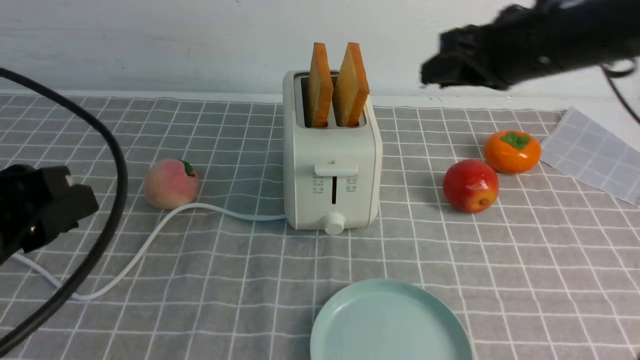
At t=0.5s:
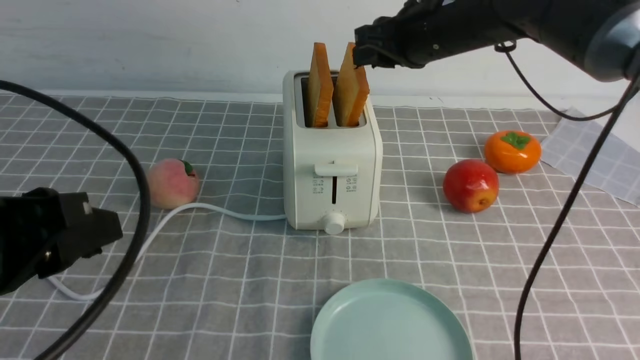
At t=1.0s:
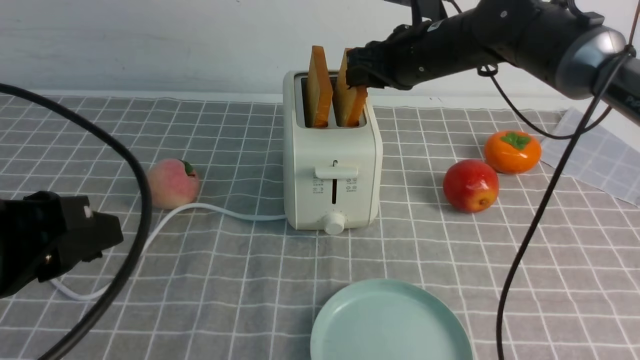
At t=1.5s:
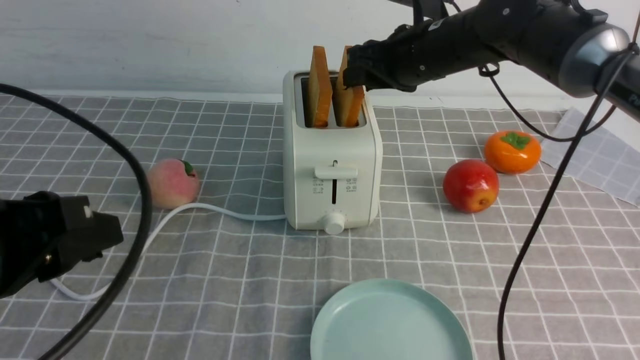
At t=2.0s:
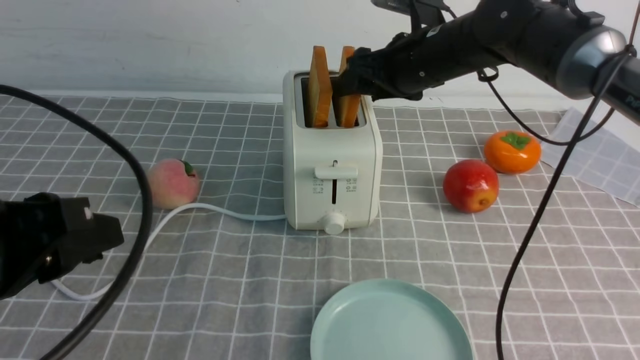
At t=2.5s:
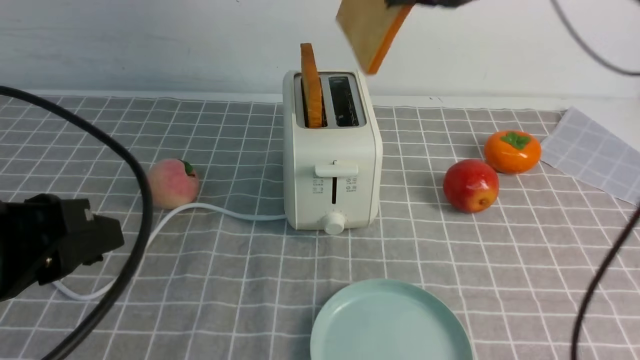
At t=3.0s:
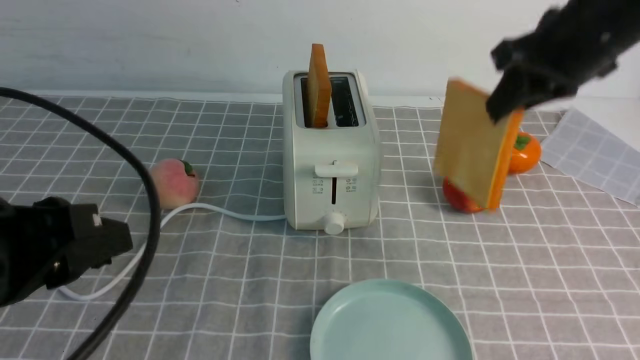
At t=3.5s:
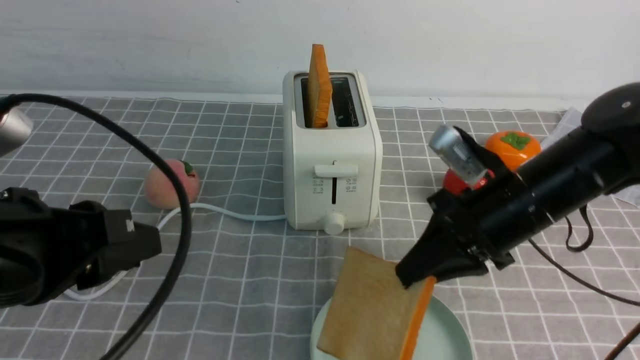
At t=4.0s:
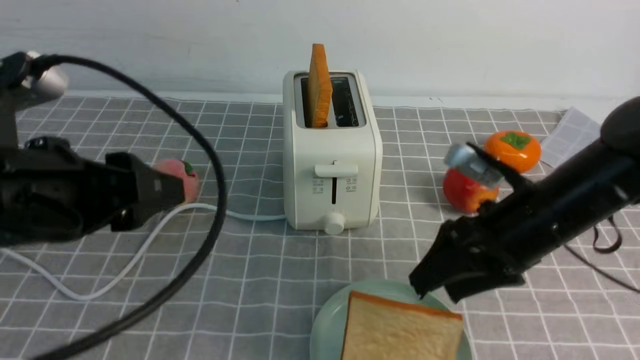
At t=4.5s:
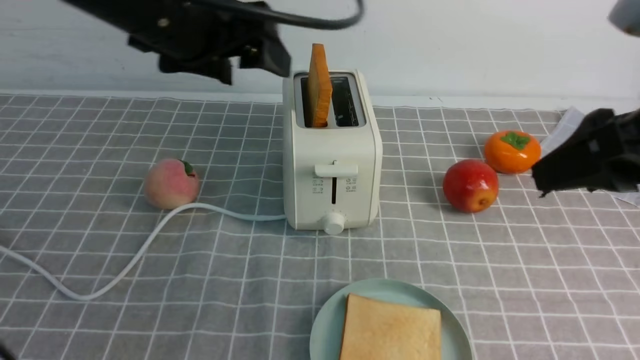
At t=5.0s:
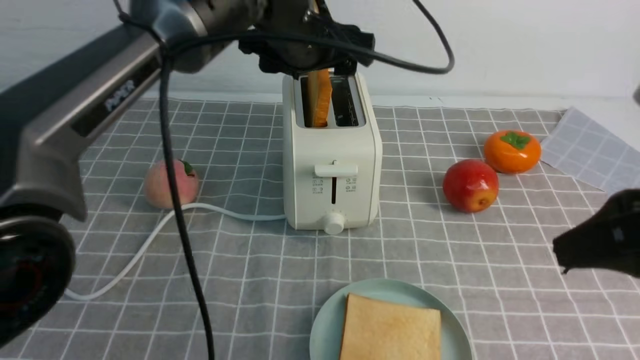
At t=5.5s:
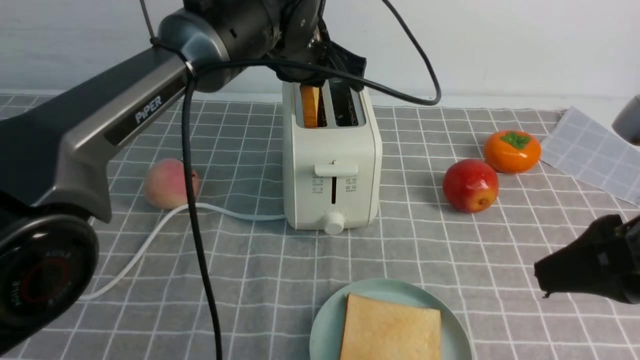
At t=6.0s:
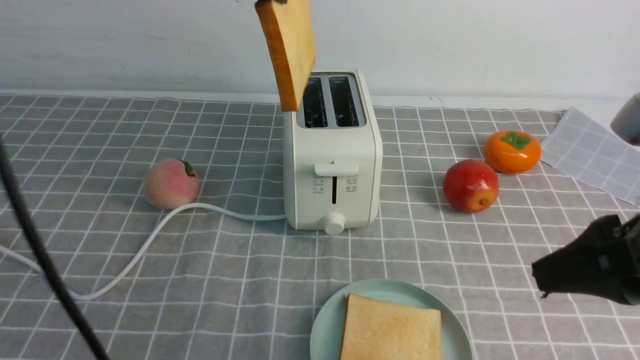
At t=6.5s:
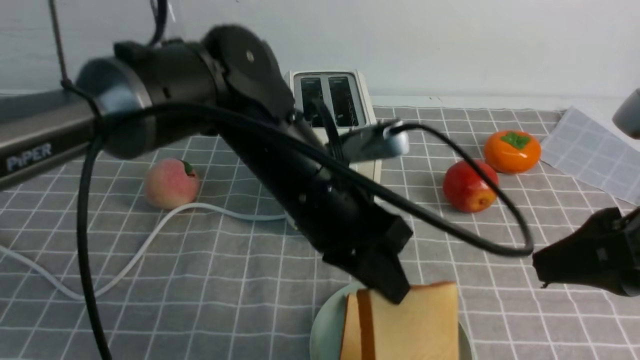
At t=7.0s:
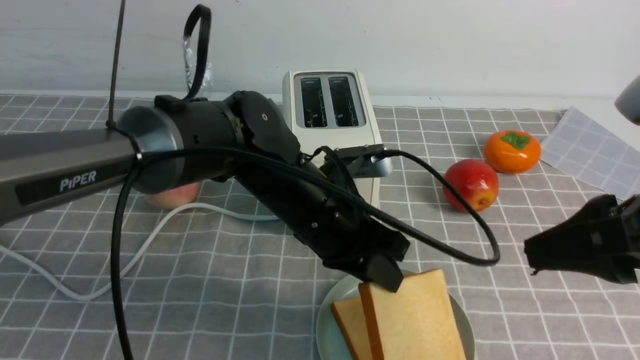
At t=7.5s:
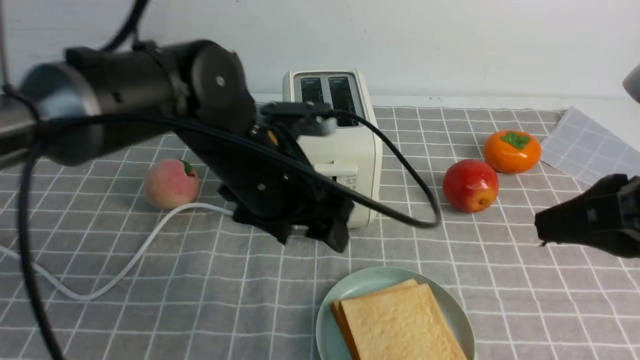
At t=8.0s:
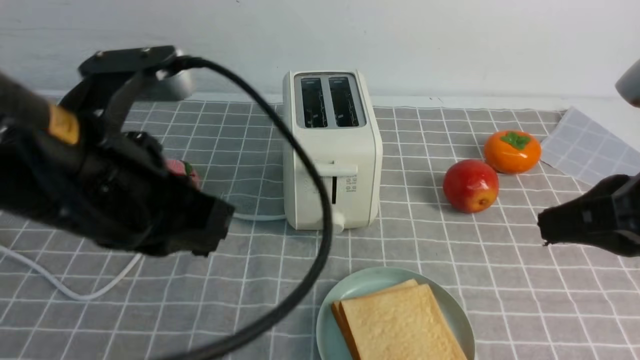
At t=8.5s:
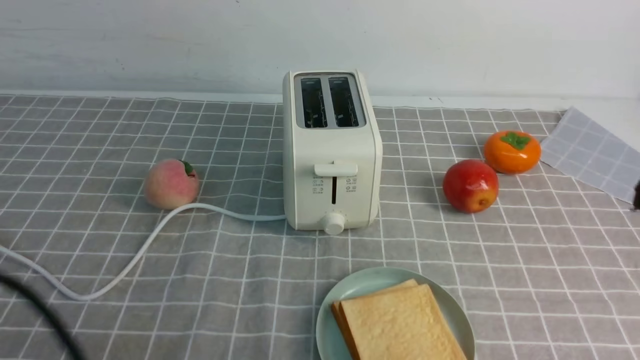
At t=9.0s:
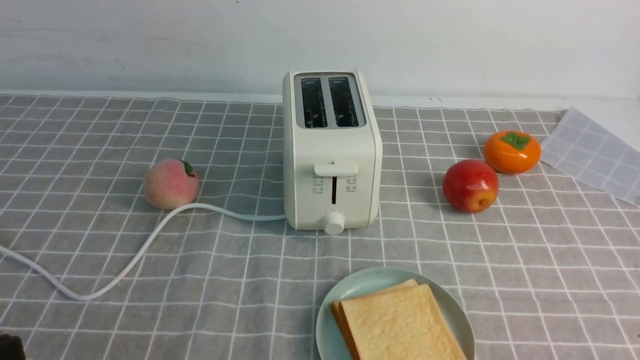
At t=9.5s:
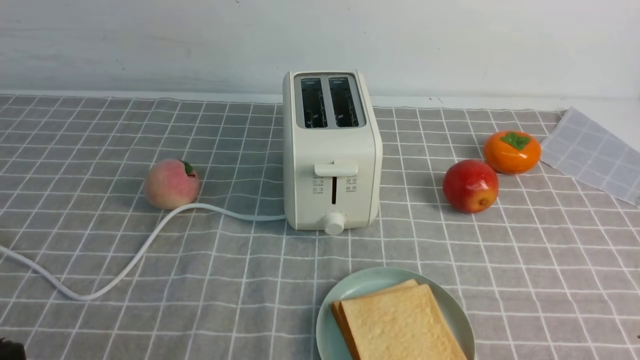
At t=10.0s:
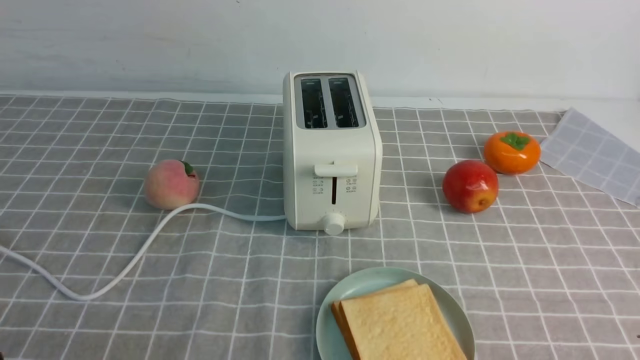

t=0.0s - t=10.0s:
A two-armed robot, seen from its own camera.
Task of the whole recording: take toasted bread from bread machine on grey coffee table place on plate.
Step, t=0.0s - t=2.5s: use the right arm to take out a slice of bread.
Step, t=3.0s - t=4.0s: use the right arm to put a slice of bread into the plate.
Step, t=4.5s - t=5.5s: use the left arm to take out a slice of bread.
Step, t=6.0s - t=7.0s: use the left arm to put a slice of bread into the empty plate.
t=0.0s - t=2.0s: The right gripper heads forward, to the left and downward, covering approximately 15 cm.
t=2.0s - t=4.0s: The left gripper heads forward, covering approximately 5 cm, while the right gripper is displaced backward and to the right by about 20 cm, travels upward and back again, about 10 cm each way, and closes, then reopens.
t=4.0s - t=6.0s: The left gripper moves forward, to the right and upward, roughly 20 cm, and closes. Meanwhile the right gripper shifts about 15 cm backward and upward.
t=6.0s - t=8.0s: The left gripper goes about 20 cm backward, to the left and downward, and opens and closes again, while the right gripper closes up.
t=8.0s - t=10.0s: The right gripper moves backward and downward, approximately 15 cm; the left gripper shifts approximately 25 cm backward, downward and to the left.
